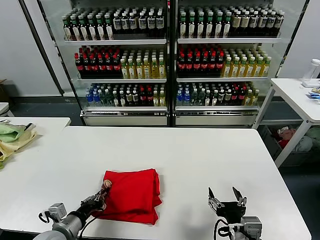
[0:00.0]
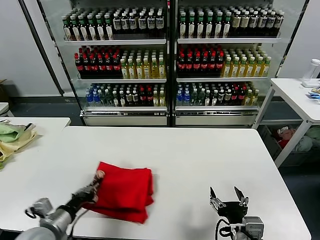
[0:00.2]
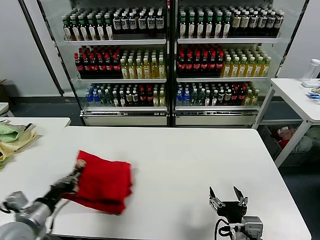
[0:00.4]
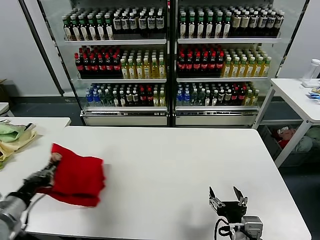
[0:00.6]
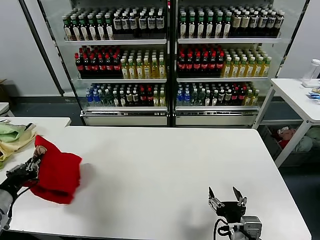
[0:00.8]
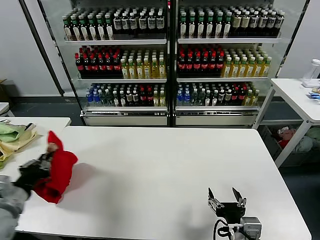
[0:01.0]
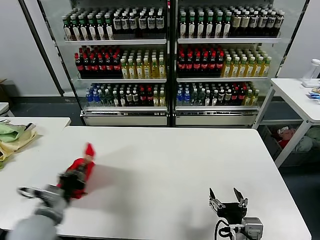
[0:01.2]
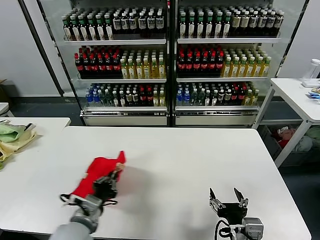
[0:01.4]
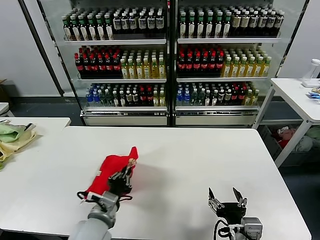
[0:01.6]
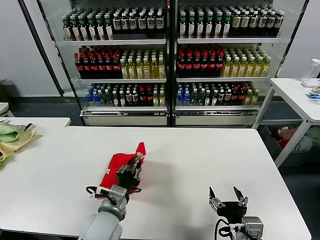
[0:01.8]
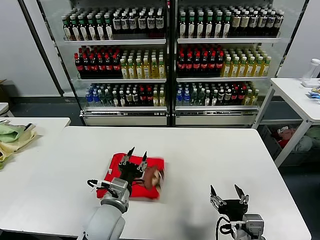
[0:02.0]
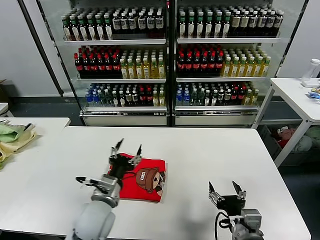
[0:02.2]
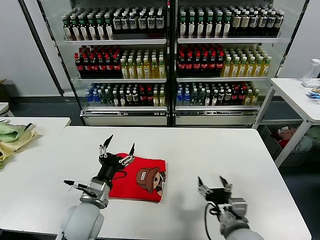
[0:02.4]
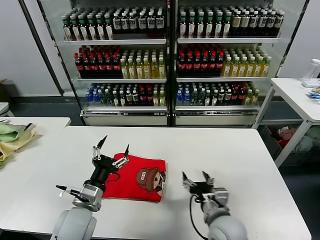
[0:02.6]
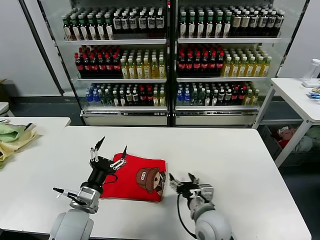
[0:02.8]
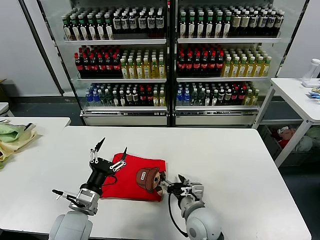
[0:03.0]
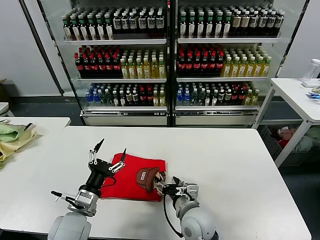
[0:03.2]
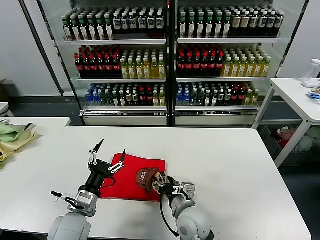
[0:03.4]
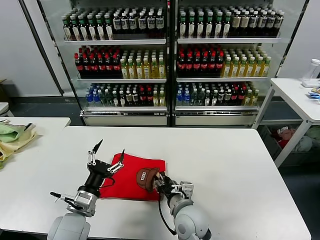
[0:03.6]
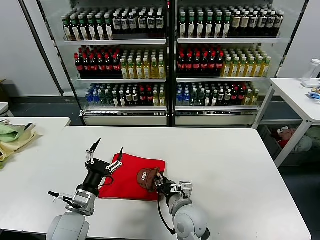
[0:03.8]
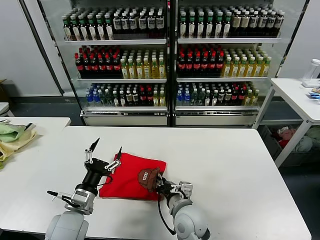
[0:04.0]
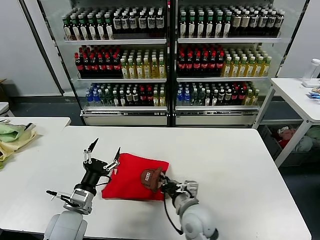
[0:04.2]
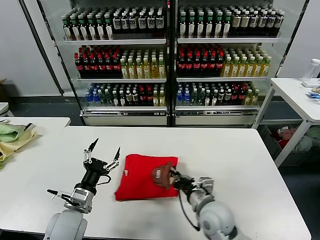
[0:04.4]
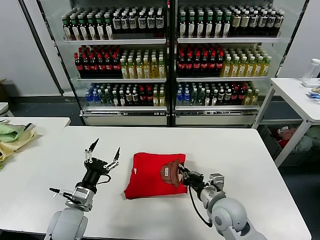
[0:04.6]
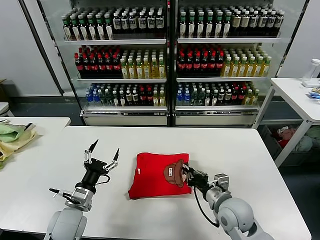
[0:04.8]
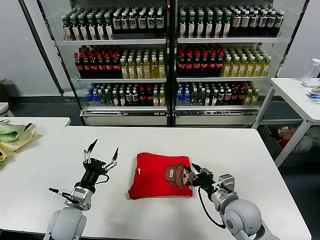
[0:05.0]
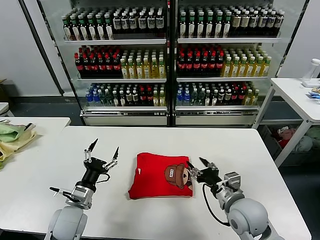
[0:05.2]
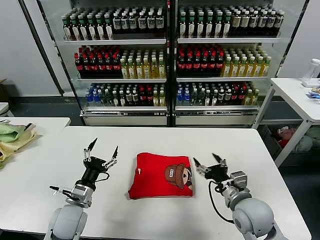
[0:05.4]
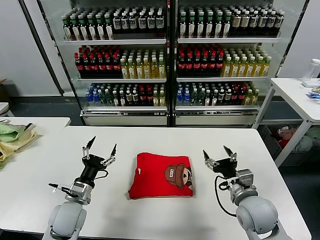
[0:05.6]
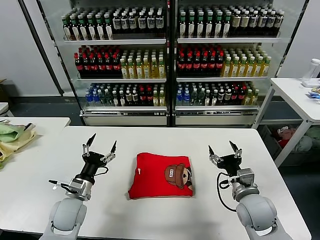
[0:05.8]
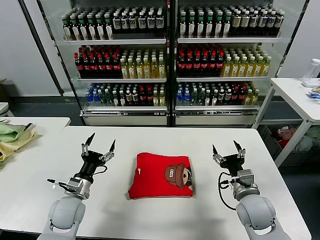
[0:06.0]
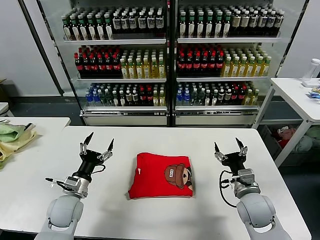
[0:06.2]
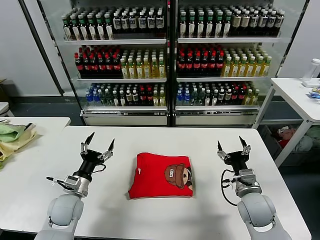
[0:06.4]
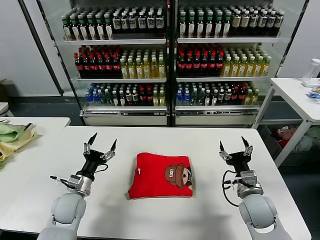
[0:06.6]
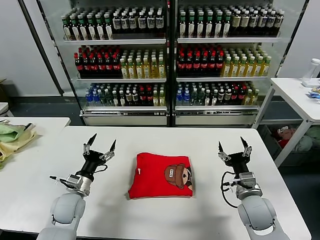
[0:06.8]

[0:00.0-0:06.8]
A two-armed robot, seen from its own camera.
Task of the whole recording: fold and organize the clothes.
Step, 0:00.0 to 0:02.0: Flip the folded clothes over with left gripper.
Step, 0:02.2 to 0:05.0: Drag the clothes to the center of the table.
0:00.0 to 0:01.4: The left gripper travels to the right and upward by roughly 10 cm.
0:01.4 to 0:02.8: The left gripper travels to the right and back again, approximately 10 cm each way, and opens. Meanwhile the right gripper shifts approximately 15 cm forward, to the left and downward.
0:02.8 to 0:04.0: The right gripper heads to the left, covering roughly 5 cm, and closes its fingers.
0:04.0 to 0:05.4: The left gripper moves about 5 cm. Meanwhile the right gripper goes roughly 15 cm to the right and upward, and opens its fingers.
0:05.4 to 0:06.8: The left gripper moves forward, approximately 5 cm; the right gripper moves approximately 5 cm.
